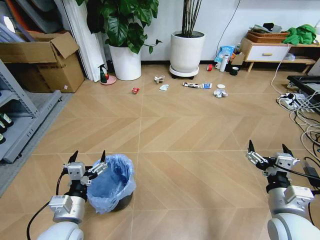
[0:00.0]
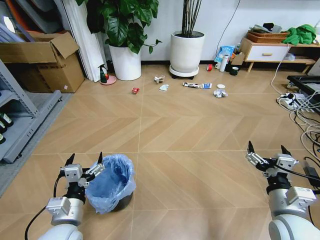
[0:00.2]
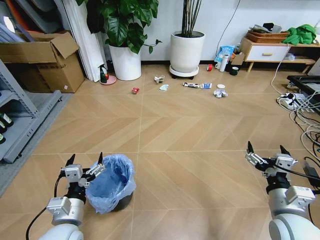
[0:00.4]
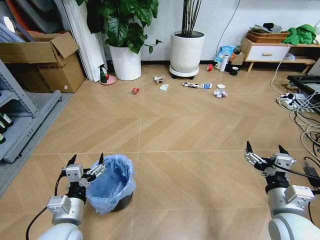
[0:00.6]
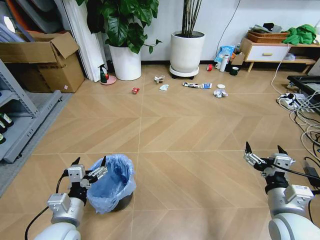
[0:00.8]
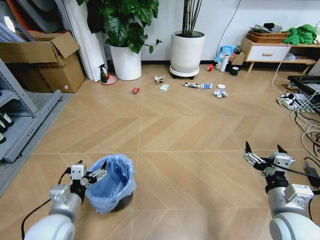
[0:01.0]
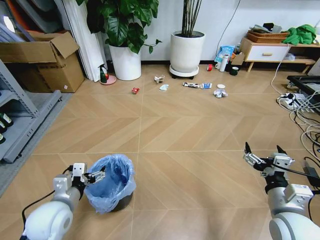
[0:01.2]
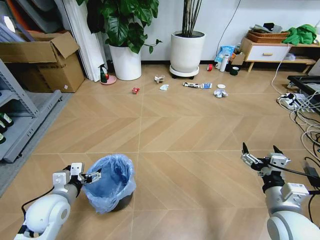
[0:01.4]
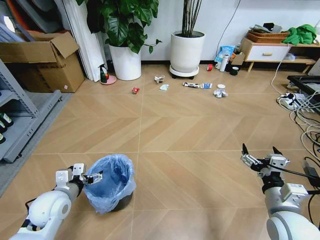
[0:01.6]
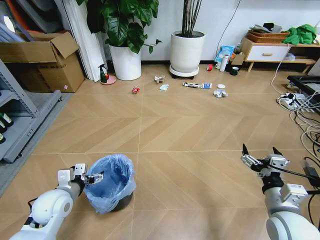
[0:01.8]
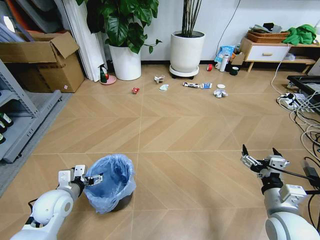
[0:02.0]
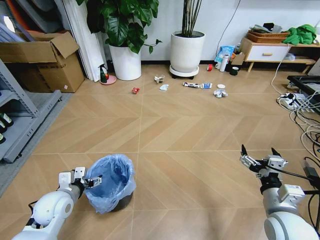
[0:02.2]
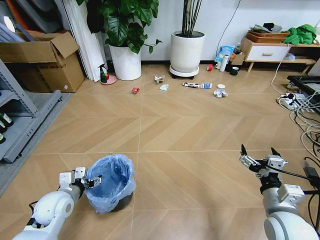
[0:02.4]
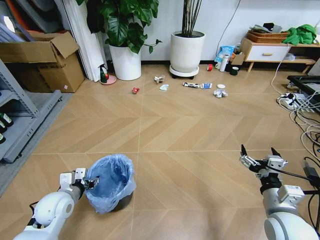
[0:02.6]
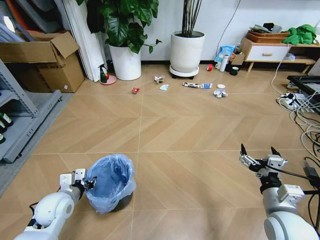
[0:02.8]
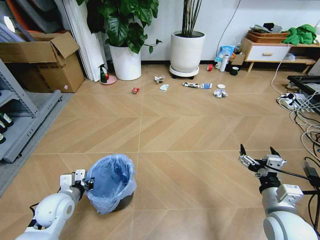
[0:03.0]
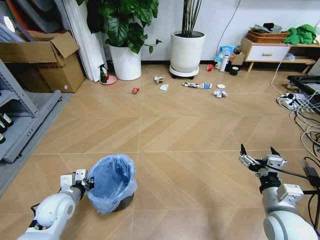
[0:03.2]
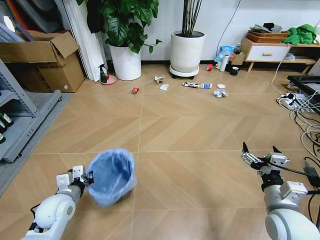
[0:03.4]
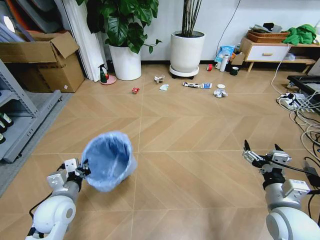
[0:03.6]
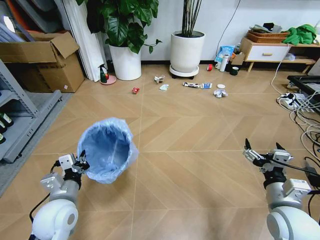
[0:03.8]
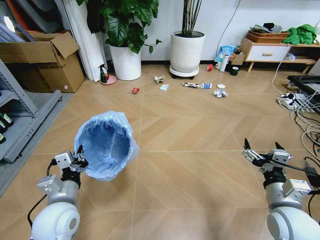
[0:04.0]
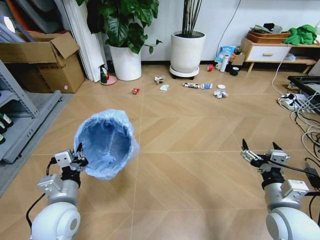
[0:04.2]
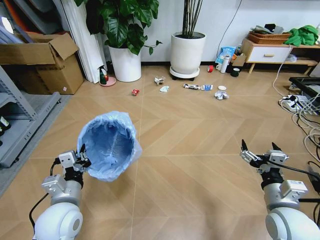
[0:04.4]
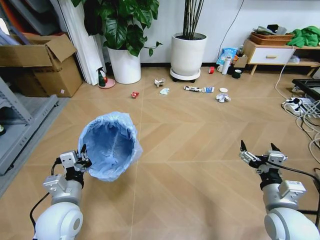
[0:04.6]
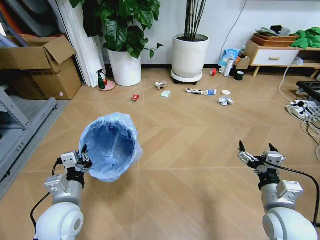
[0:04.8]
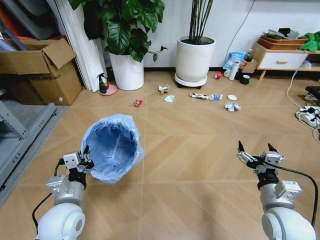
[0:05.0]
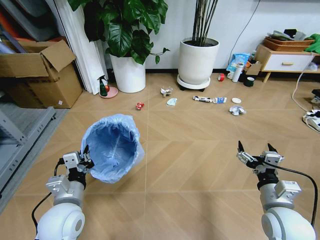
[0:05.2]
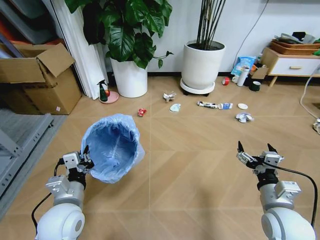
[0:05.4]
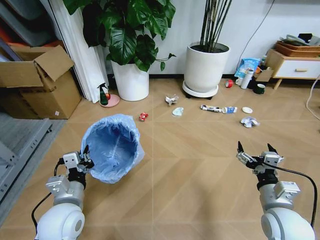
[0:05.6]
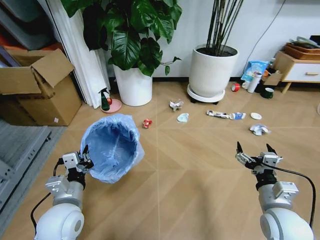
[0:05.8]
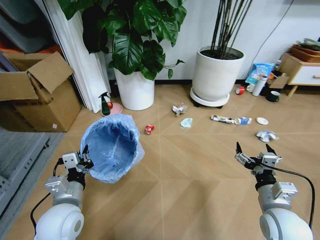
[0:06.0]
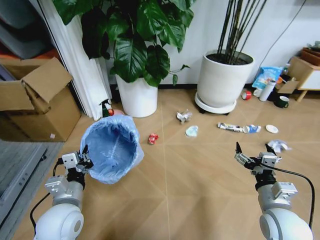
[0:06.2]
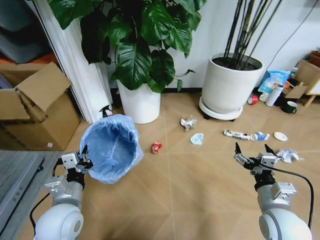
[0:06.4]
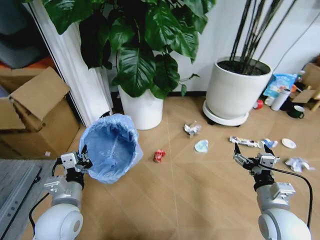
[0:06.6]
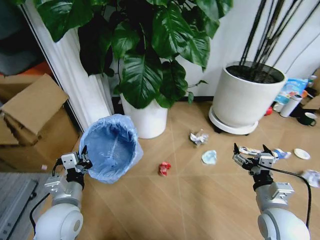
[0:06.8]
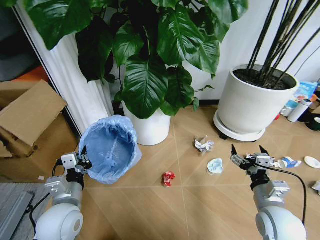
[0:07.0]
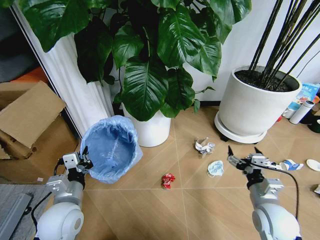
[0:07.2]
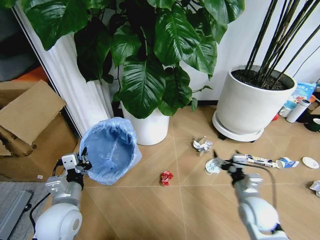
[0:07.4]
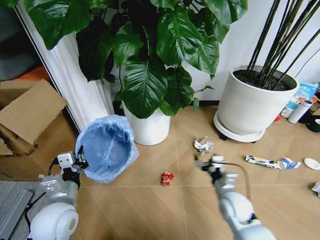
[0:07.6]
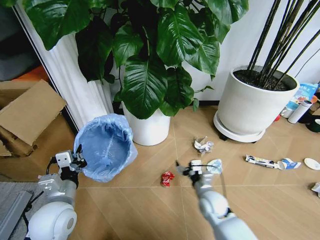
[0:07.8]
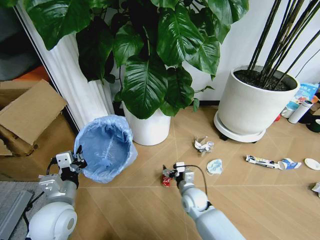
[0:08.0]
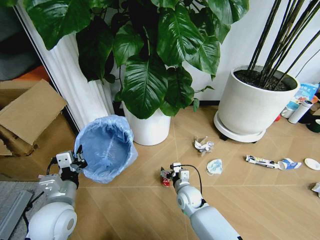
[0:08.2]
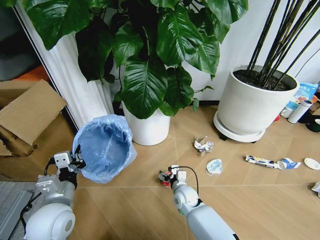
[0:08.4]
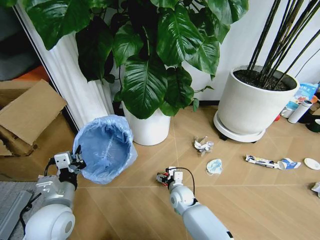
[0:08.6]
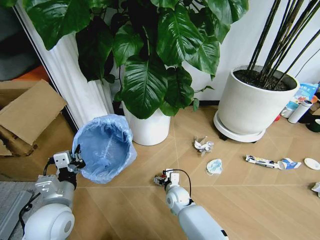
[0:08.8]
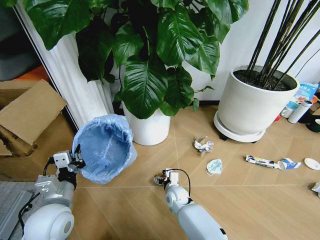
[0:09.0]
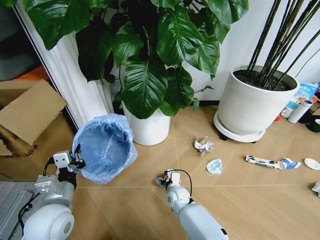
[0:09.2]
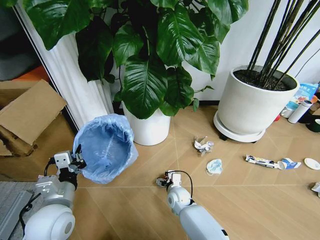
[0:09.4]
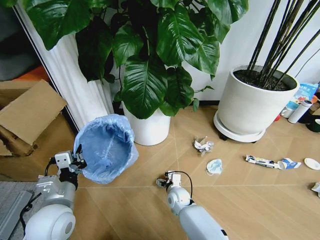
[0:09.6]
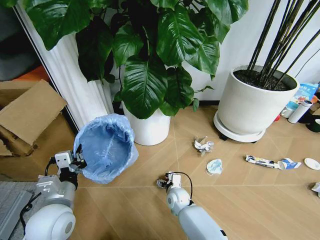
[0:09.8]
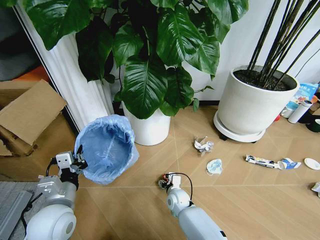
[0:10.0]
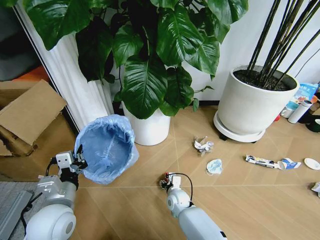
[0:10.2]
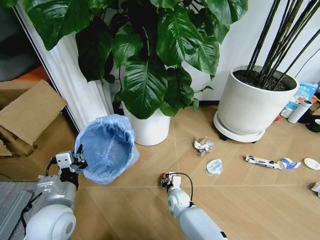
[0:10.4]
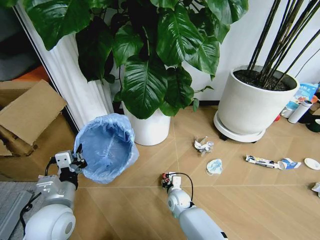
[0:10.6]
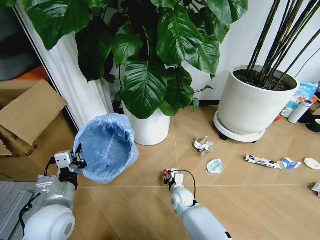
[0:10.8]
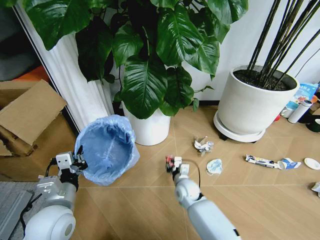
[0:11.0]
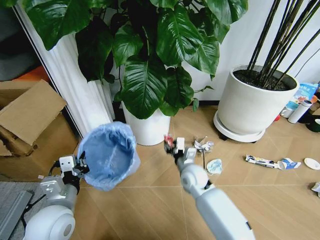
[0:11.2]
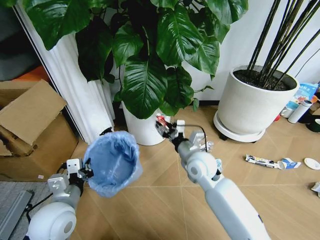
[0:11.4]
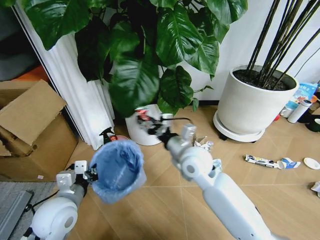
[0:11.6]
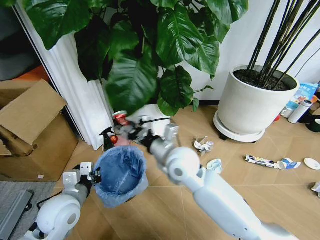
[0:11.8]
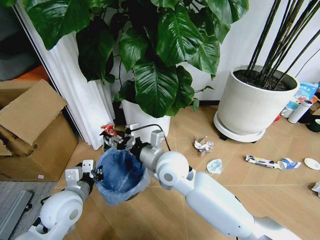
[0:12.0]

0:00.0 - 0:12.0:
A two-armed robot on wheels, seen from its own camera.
Task of the whole recording: Pick up the trash bin and place the garbage on the floor into it.
0:01.6 - 0:03.0: The left gripper closes.
0:03.0 - 0:04.4: The left gripper moves to the right, upward and backward, roughly 10 cm.
0:06.0 - 0:07.6: The right gripper moves downward, forward and to the left, approximately 15 cm.
0:07.6 - 0:09.0: The right gripper shifts approximately 25 cm to the left, downward and forward.
0:09.0 - 0:10.4: The right gripper closes up.
0:10.4 - 0:12.0: The right gripper travels upward by approximately 30 cm.

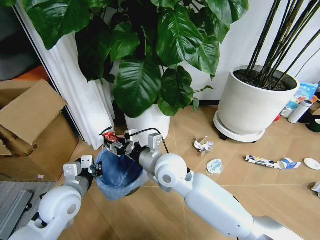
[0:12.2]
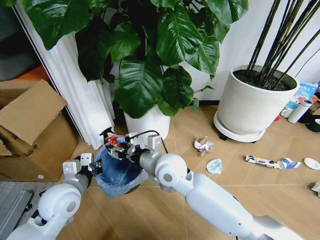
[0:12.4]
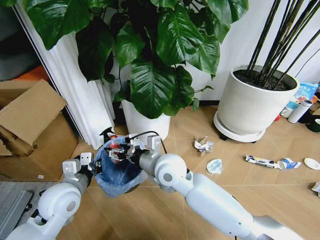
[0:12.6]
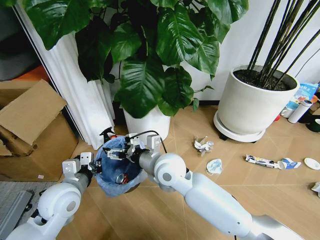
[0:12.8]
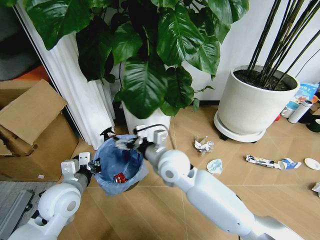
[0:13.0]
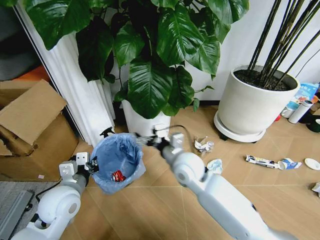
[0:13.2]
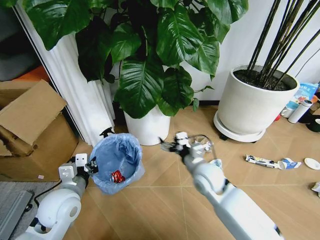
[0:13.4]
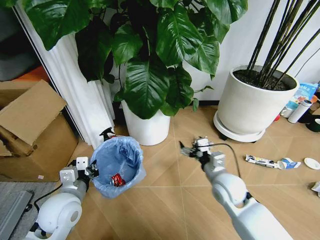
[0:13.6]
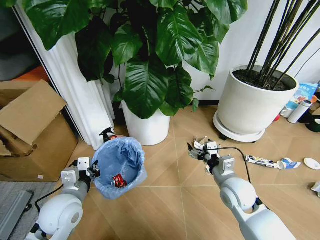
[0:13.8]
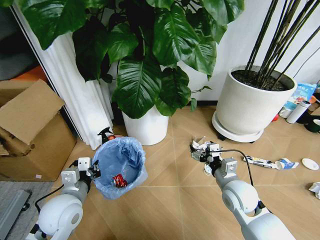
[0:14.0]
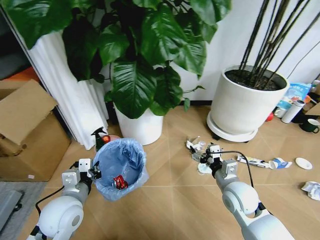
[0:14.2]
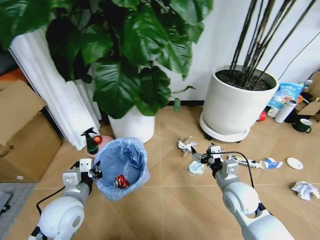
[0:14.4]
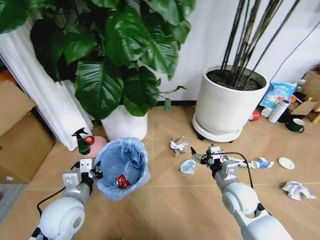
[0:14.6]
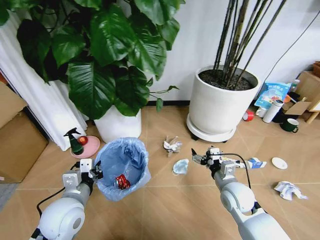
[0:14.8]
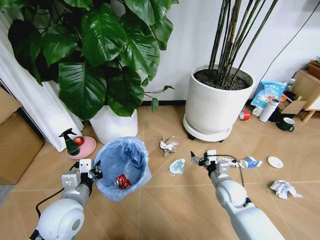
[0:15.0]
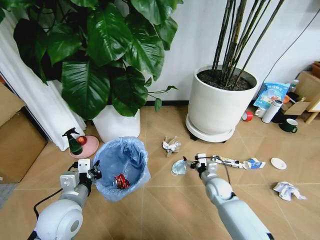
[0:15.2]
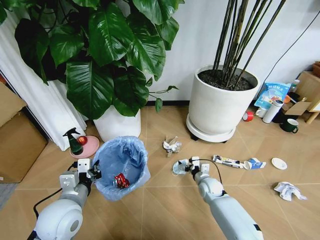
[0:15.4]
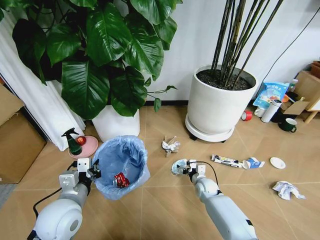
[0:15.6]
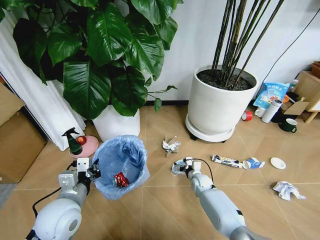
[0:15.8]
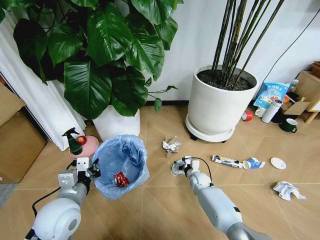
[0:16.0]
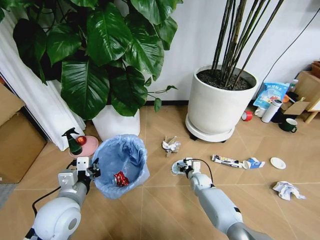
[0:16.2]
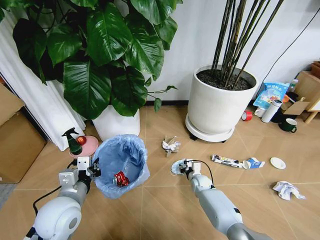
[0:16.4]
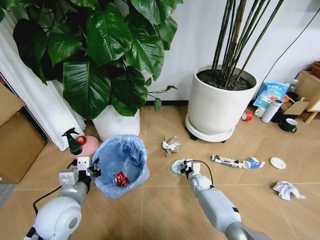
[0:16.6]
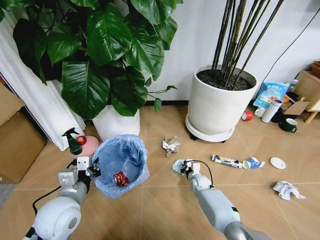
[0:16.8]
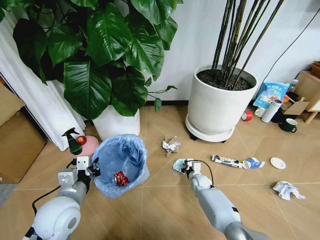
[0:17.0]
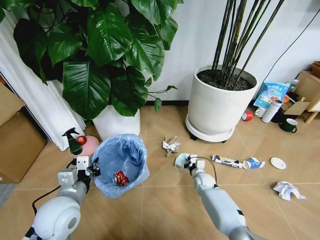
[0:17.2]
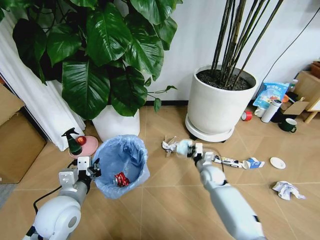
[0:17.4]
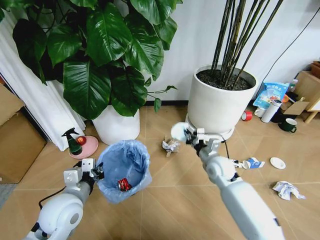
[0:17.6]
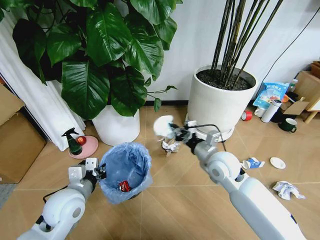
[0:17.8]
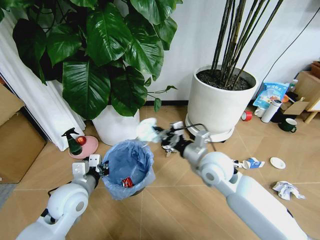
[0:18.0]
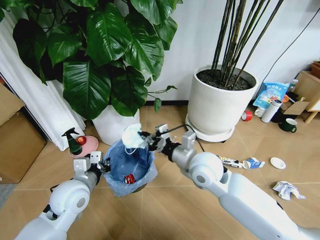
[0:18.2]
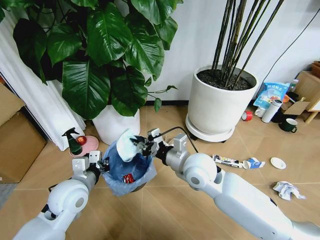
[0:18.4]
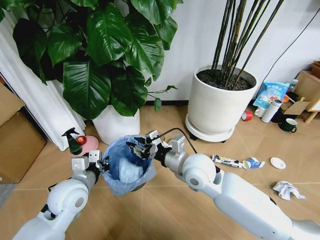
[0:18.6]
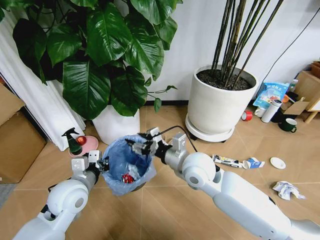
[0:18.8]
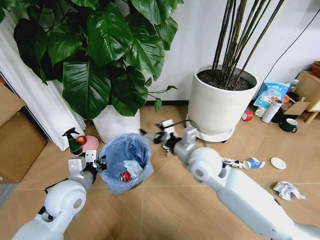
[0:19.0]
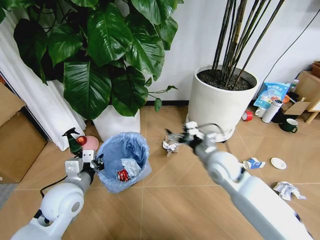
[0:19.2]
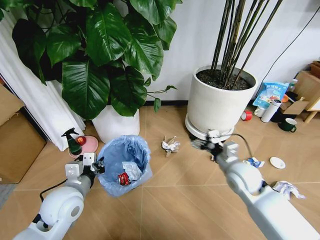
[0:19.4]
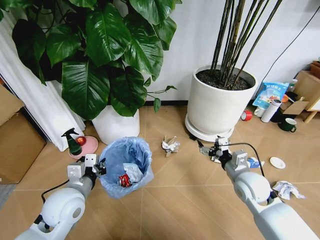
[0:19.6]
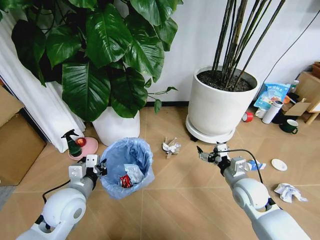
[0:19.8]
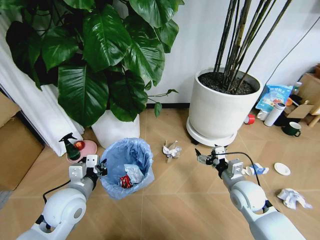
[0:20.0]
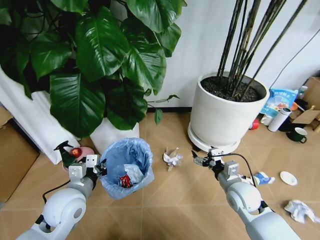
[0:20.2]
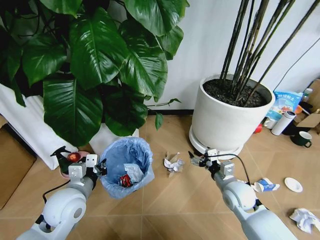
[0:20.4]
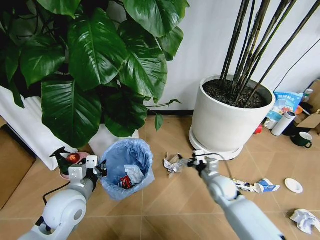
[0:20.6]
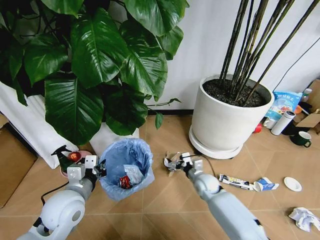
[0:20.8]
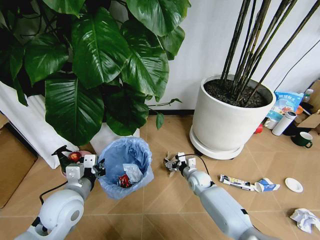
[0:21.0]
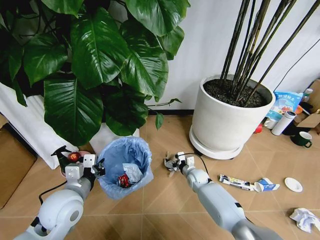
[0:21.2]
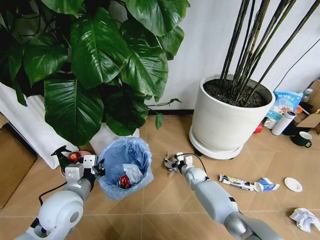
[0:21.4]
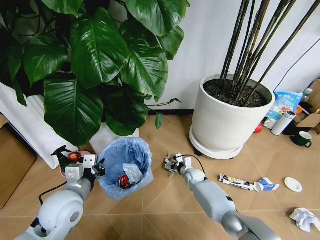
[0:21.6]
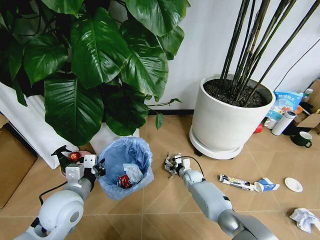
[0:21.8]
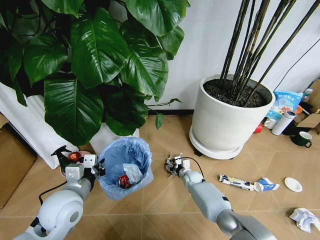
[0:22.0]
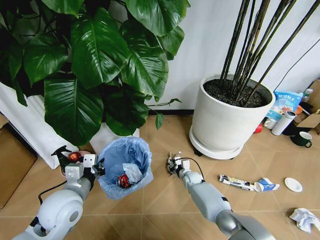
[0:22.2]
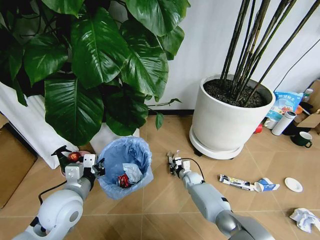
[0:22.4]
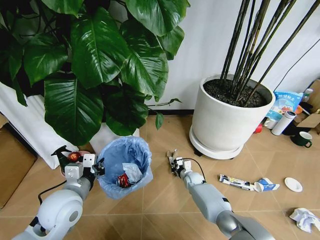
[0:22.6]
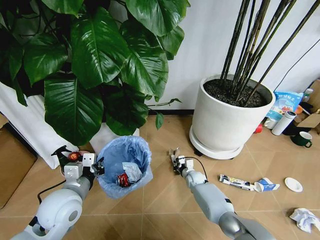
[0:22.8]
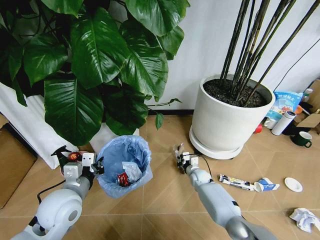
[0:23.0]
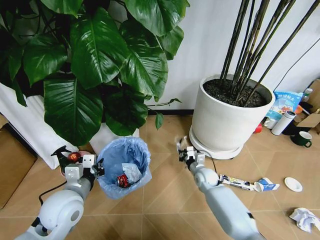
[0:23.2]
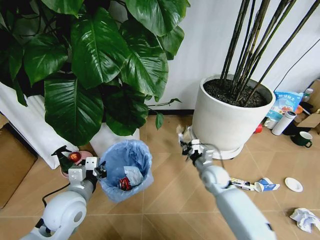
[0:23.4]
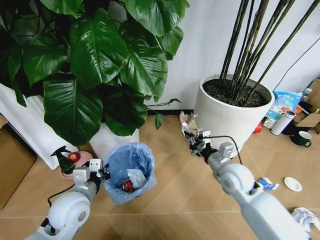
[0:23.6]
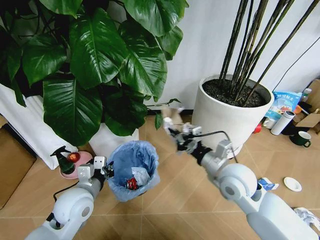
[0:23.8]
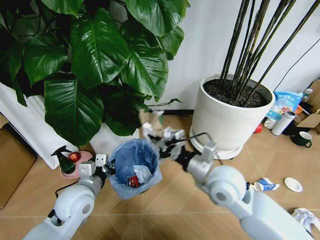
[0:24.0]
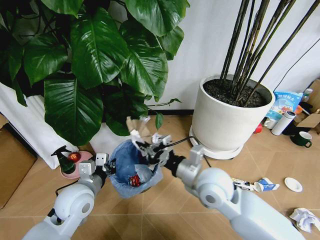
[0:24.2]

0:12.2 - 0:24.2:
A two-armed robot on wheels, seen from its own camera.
Task of the whole recording: Pick up the trash bin and place the garbage on the floor into it.
0:12.2 - 0:13.8: The right gripper is displaced to the right and downward by some 25 cm, and opens.
0:13.8 - 0:15.2: The right gripper is displaced downward and forward by approximately 15 cm.
0:15.2 - 0:16.6: The right gripper shifts some 10 cm downward and forward, and closes its fingers.
0:16.6 - 0:18.2: The right gripper moves upward, roughly 35 cm. The left gripper ends up some 5 cm from where it was.
0:18.2 - 0:19.8: The right gripper travels to the right and downward by about 20 cm, and opens.
0:19.8 - 0:21.2: The right gripper goes roughly 25 cm downward, forward and to the left.
0:21.2 - 0:22.6: The right gripper shifts some 5 cm downward, and closes.
0:22.6 - 0:24.2: The right gripper heads upward and backward, covering approximately 35 cm.
